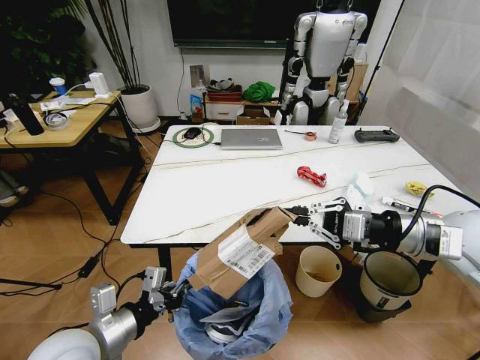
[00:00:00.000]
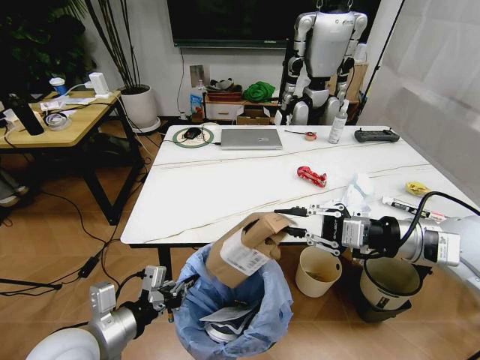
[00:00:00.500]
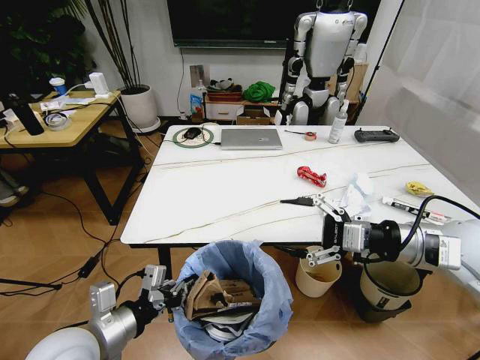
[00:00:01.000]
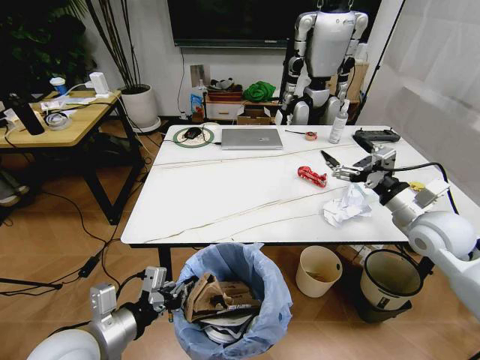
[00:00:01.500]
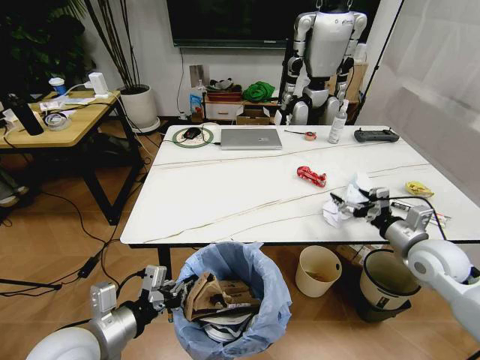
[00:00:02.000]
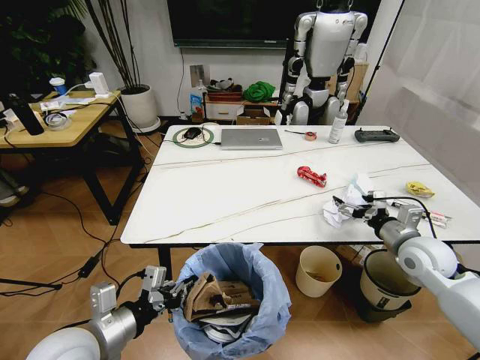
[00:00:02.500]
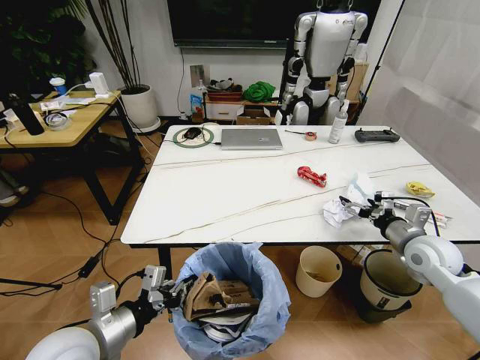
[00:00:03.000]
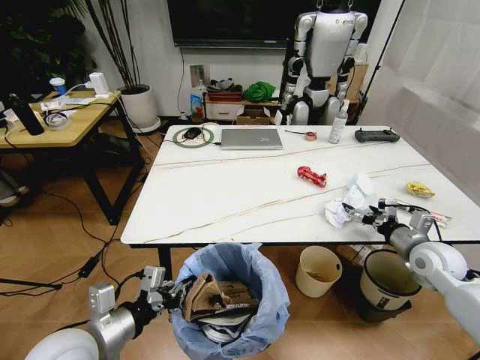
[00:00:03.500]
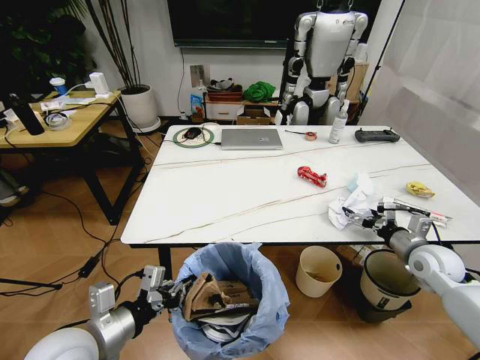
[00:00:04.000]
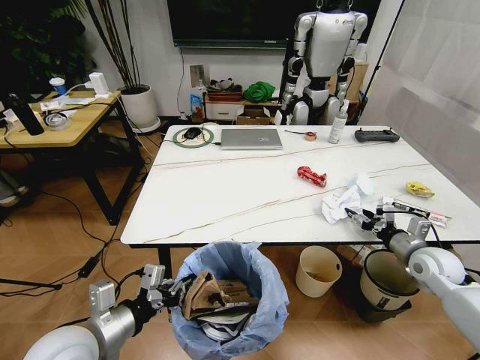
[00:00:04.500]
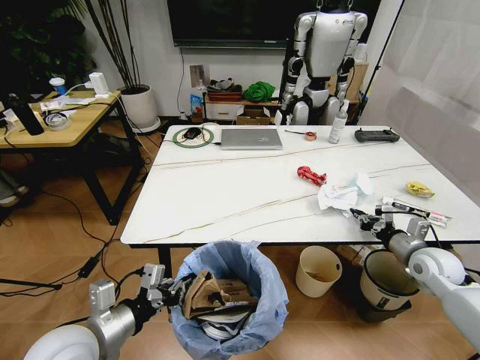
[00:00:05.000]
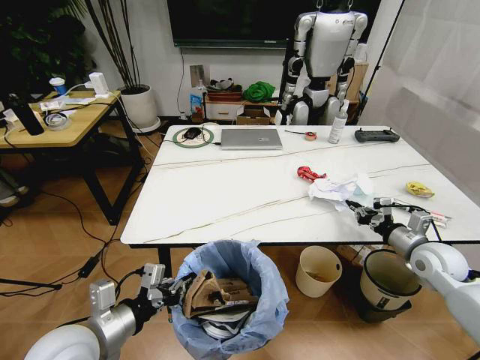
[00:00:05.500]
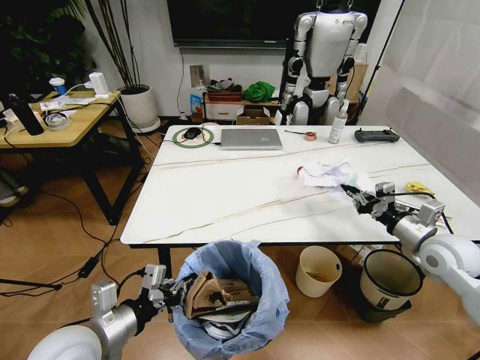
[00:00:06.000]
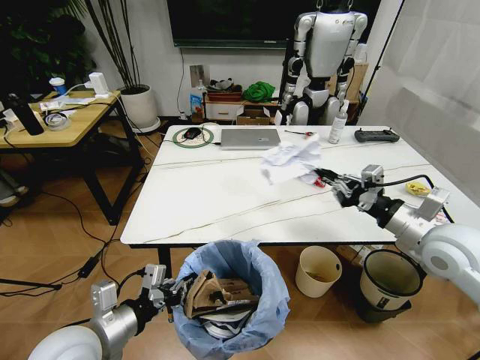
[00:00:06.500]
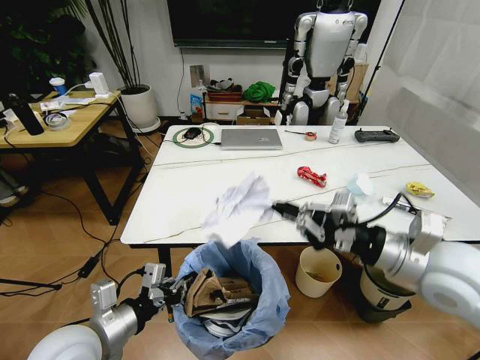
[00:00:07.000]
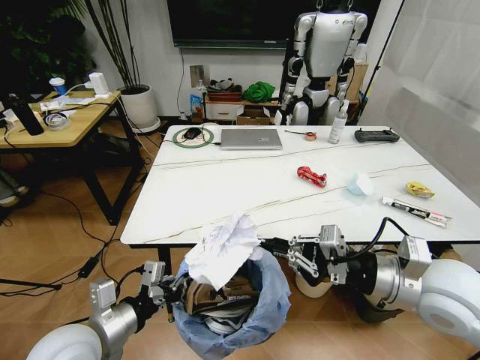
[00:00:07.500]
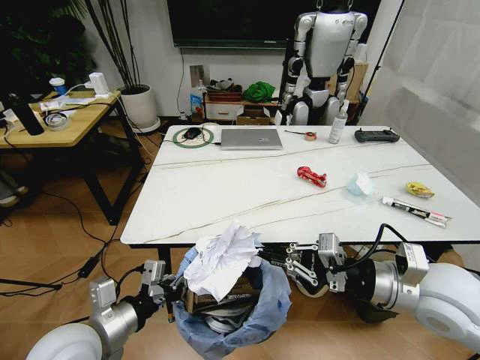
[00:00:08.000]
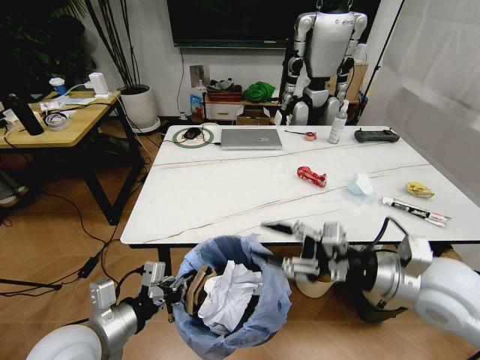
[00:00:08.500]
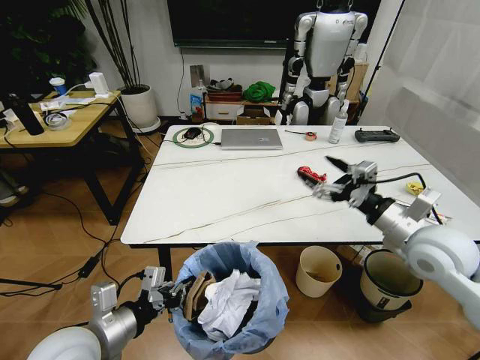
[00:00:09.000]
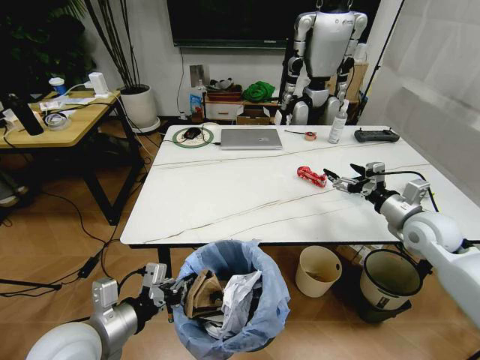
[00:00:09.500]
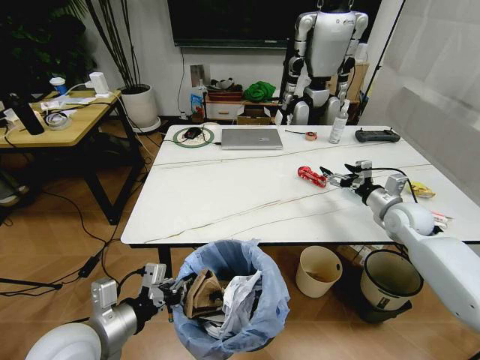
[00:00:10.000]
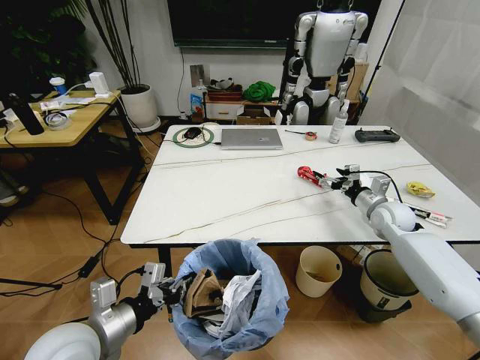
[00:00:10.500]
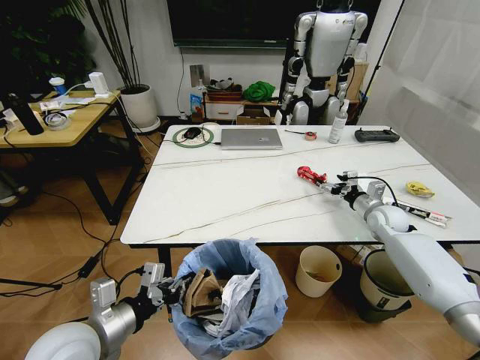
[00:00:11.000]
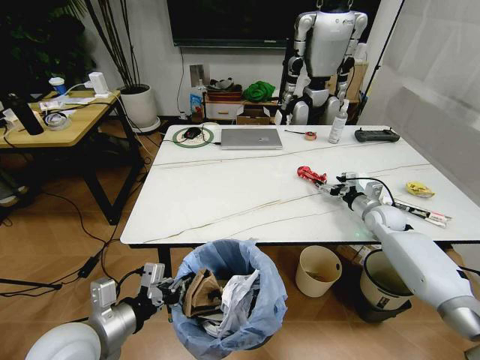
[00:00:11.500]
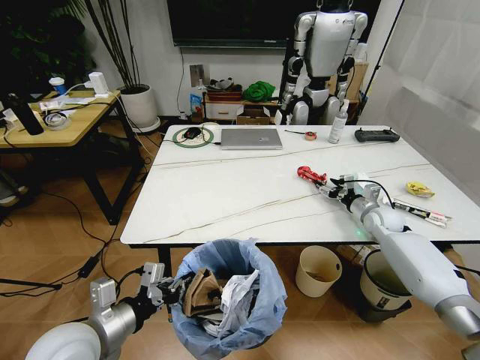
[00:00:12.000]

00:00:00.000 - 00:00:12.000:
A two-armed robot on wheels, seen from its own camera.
Task of the whole recording: Pick up the trash bin and place the trash from the table into it.
00:00:00.000 - 00:00:02.000: The right gripper is displaced downward and to the right by roughly 15 cm, and opens.
00:00:02.000 - 00:00:04.000: The right gripper is displaced downward by some 5 cm.
00:00:04.000 - 00:00:06.000: The right gripper is displaced upward by some 5 cm, and closes up.
00:00:06.000 - 00:00:08.000: The right gripper goes roughly 20 cm to the left, backward and upward.
00:00:08.000 - 00:00:10.000: The right gripper shifts roughly 25 cm forward, to the right and downward, and opens up.
00:00:10.000 - 00:00:12.000: The right gripper shifts approximately 10 cm downward and forward.

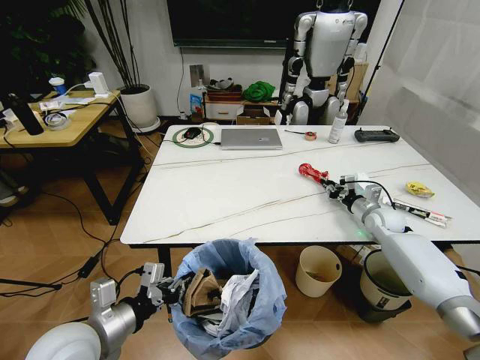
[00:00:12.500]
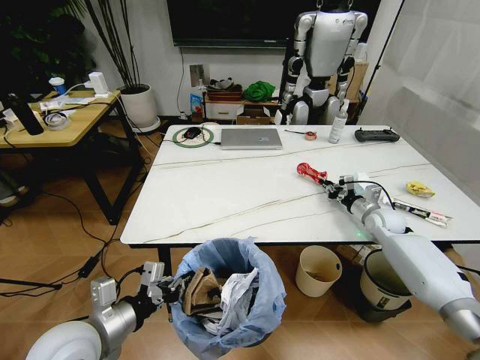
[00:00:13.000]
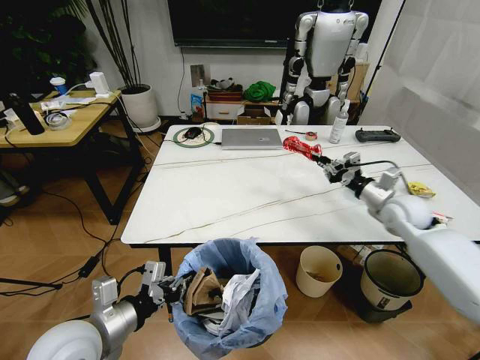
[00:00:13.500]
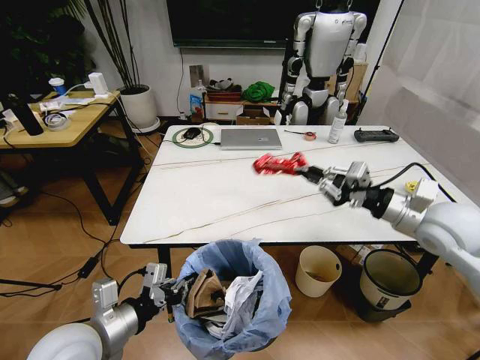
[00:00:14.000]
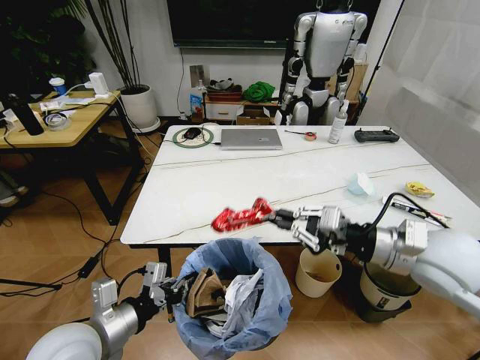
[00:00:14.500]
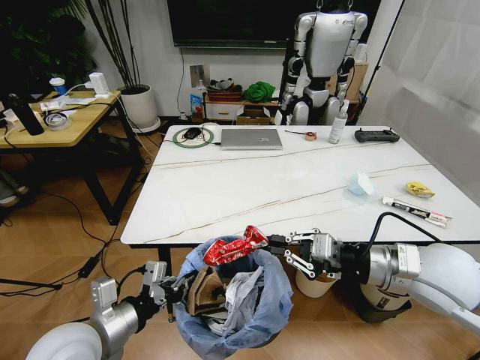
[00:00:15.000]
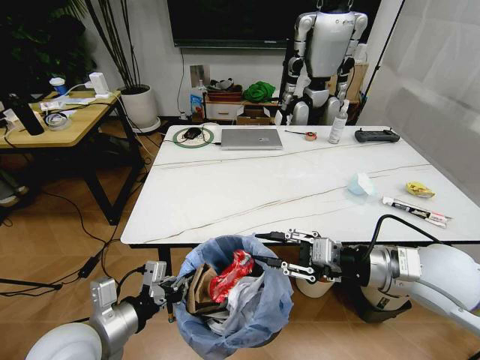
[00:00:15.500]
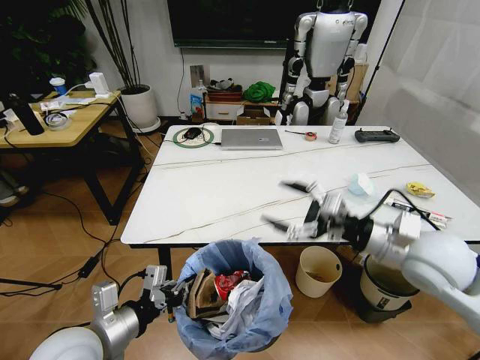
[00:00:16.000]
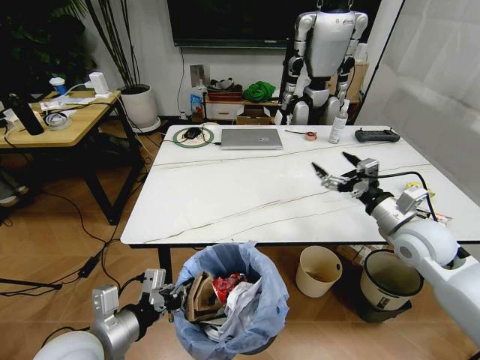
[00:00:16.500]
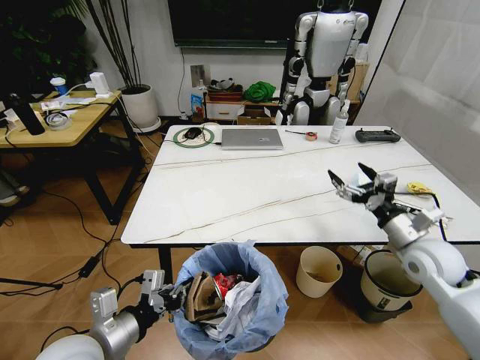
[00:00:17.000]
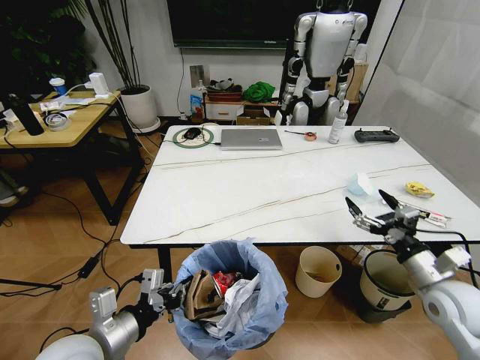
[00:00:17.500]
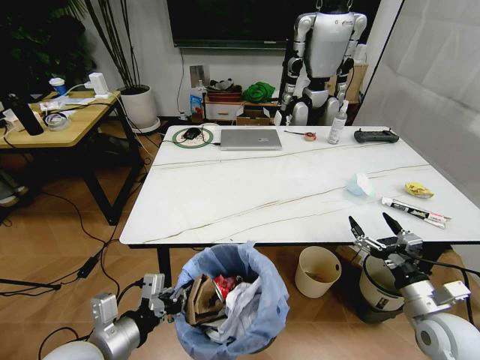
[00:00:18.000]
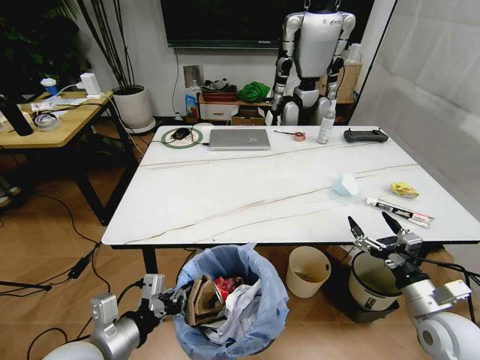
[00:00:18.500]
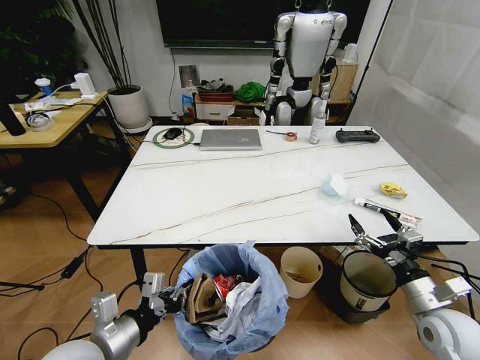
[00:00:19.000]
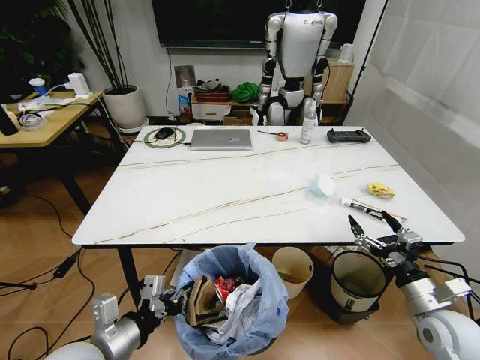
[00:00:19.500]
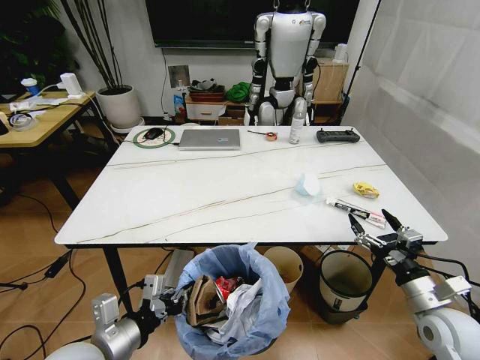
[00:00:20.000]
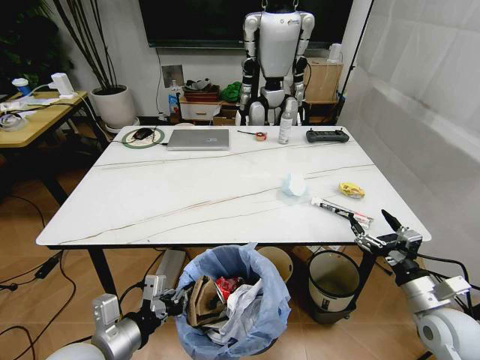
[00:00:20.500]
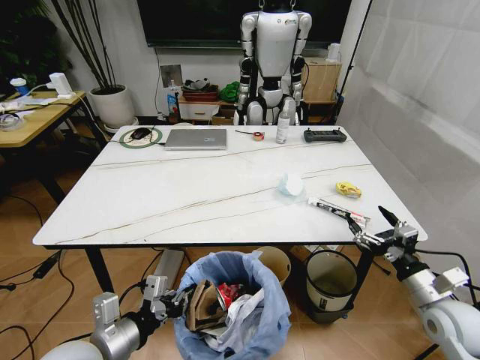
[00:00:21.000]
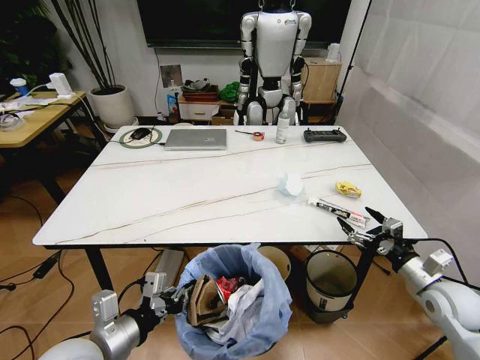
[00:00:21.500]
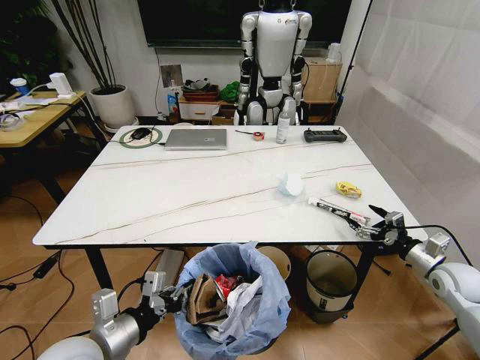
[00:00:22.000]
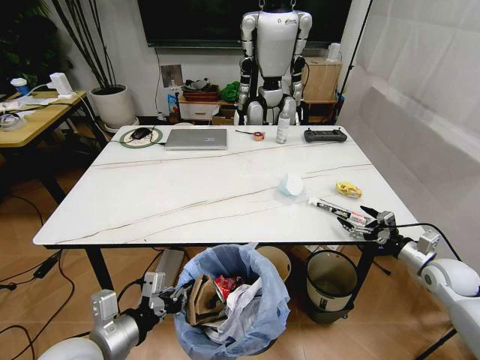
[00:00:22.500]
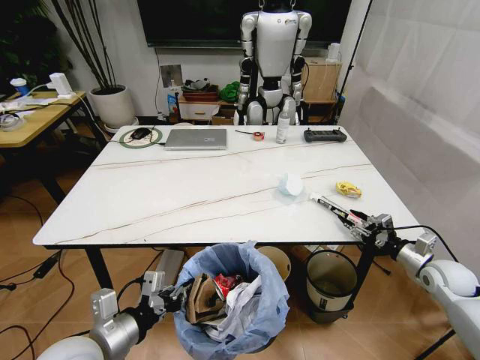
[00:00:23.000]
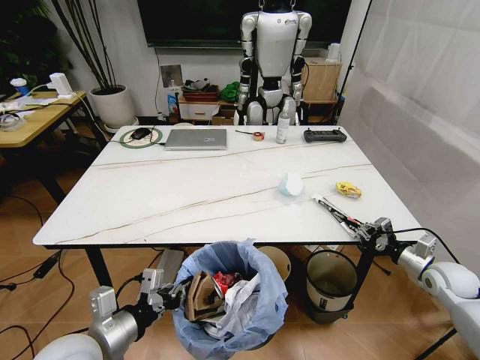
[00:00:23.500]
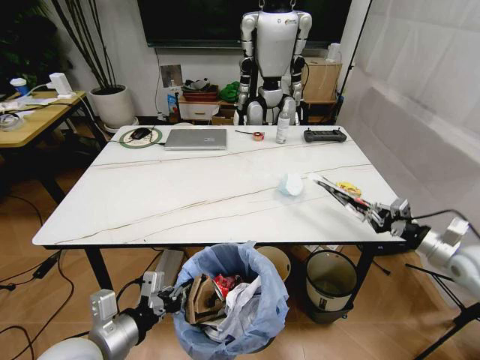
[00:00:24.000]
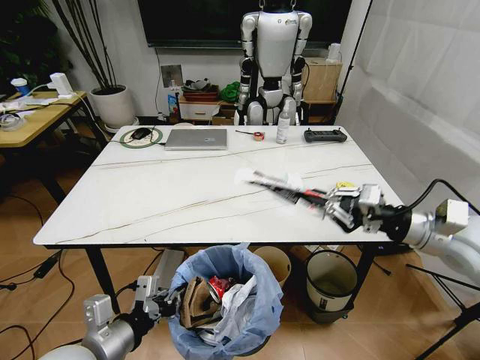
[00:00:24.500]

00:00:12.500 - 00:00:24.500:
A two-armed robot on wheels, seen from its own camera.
Task of the whole recording: Pick up the trash bin and place the trash from the table into it.
00:00:12.500 - 00:00:14.500: The right gripper travels backward, upward and to the left by roughly 35 cm.
00:00:14.500 - 00:00:16.500: The right gripper heads forward and downward, covering roughly 10 cm, and opens its fingers.
00:00:16.500 - 00:00:18.500: The right gripper goes about 20 cm backward and downward.
00:00:20.500 - 00:00:22.500: The right gripper heads forward and to the right, covering some 15 cm.
00:00:22.500 - 00:00:24.500: The right gripper is displaced upward and to the left by some 25 cm, and closes.

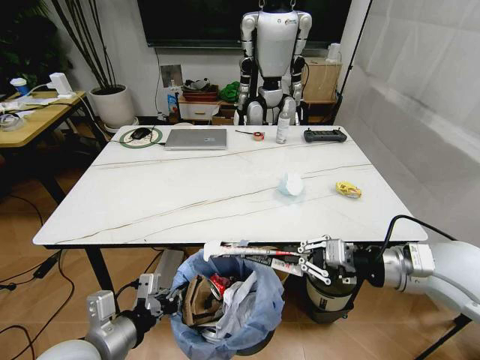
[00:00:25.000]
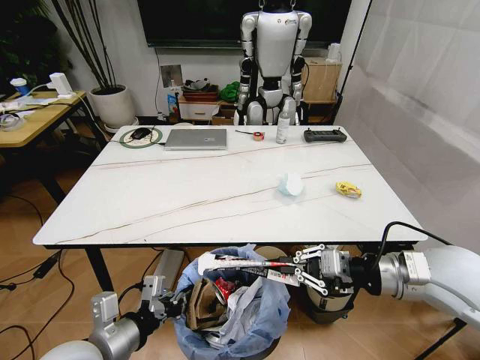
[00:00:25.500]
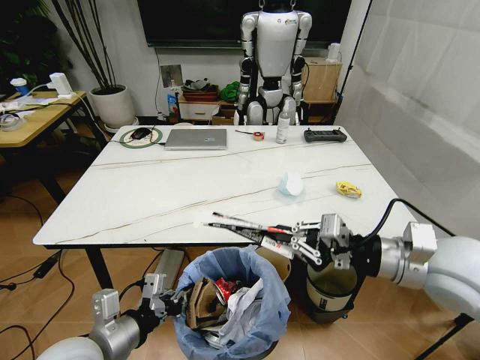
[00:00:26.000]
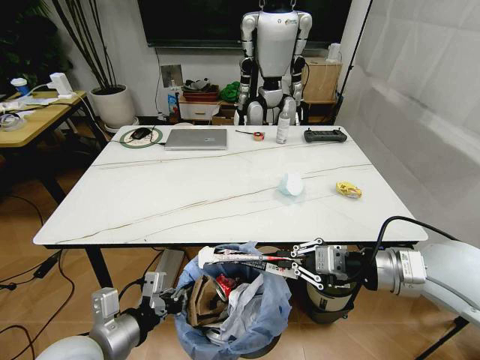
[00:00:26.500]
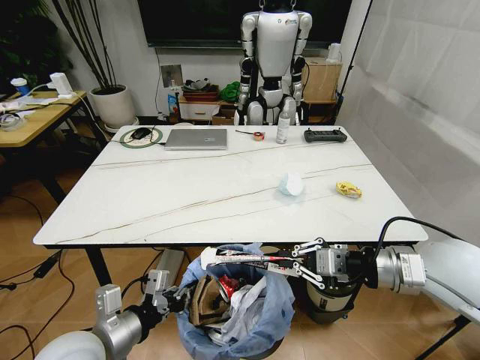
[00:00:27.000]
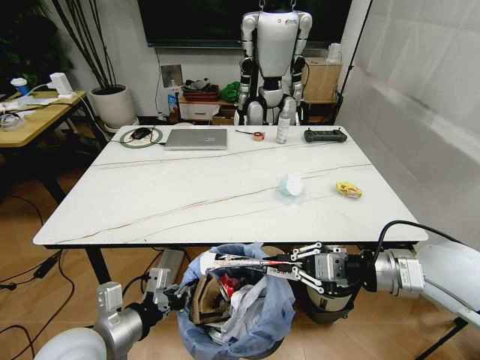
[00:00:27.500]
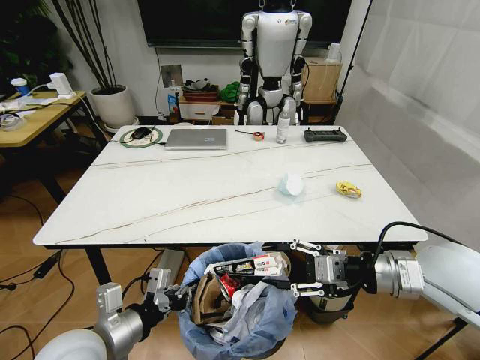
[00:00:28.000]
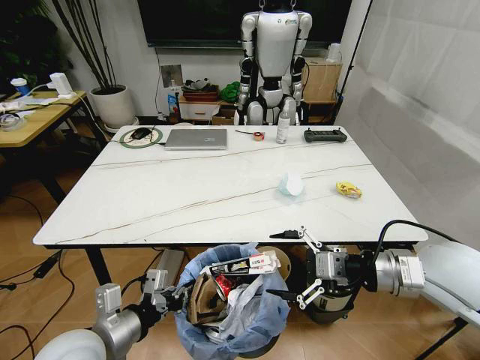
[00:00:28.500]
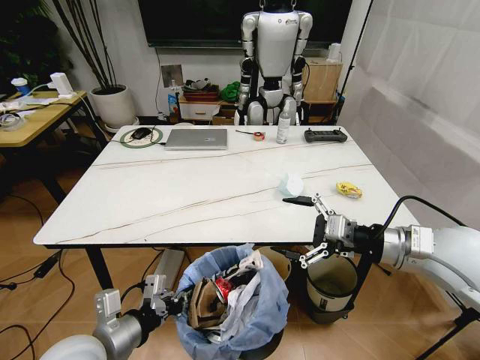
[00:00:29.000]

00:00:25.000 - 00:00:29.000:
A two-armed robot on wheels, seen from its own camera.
Task of the whole recording: Pick up the trash bin and place the trash from the table into it.
00:00:25.000 - 00:00:27.000: The grippers stay close to where they were, moving slightly.
00:00:27.000 - 00:00:29.000: The right gripper opens up.
